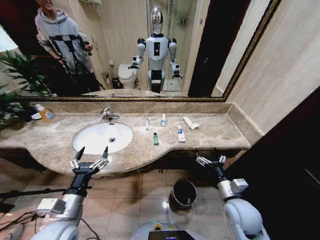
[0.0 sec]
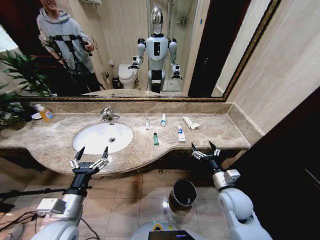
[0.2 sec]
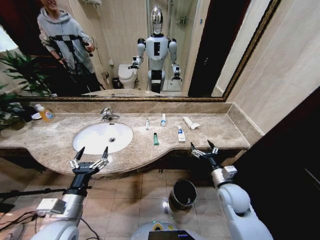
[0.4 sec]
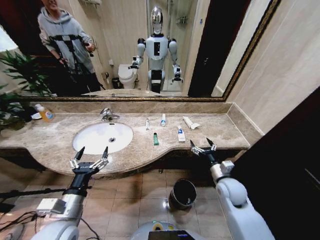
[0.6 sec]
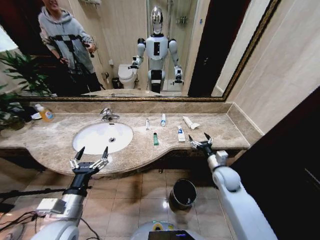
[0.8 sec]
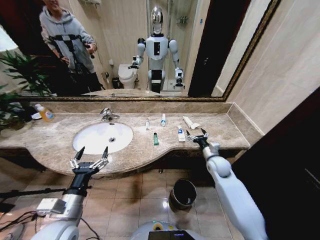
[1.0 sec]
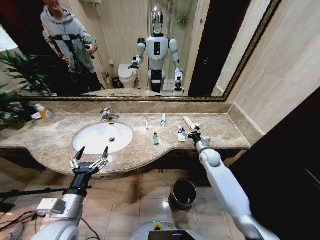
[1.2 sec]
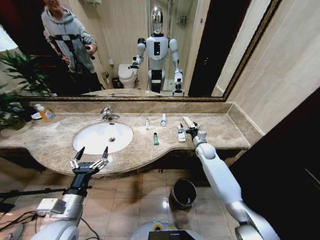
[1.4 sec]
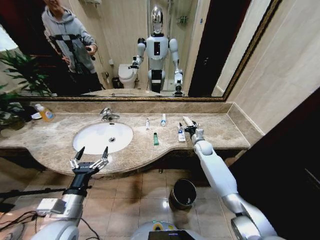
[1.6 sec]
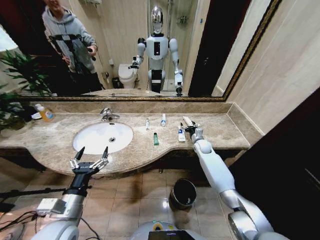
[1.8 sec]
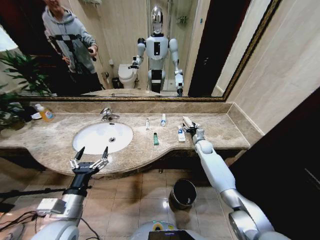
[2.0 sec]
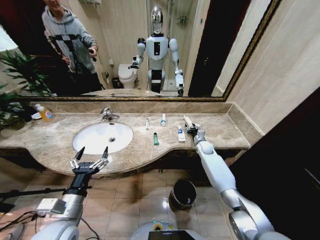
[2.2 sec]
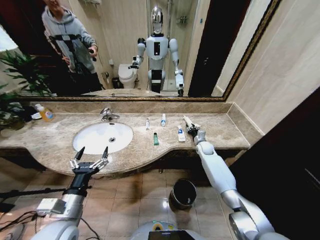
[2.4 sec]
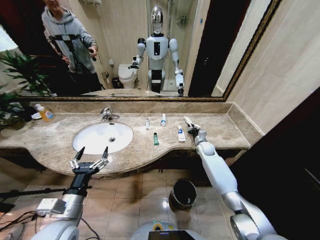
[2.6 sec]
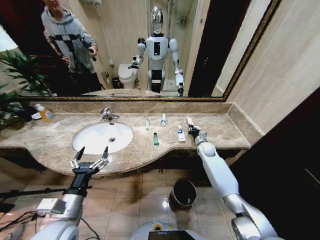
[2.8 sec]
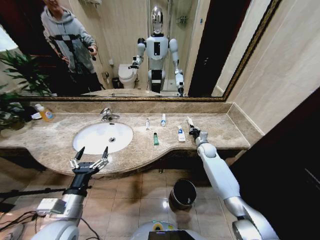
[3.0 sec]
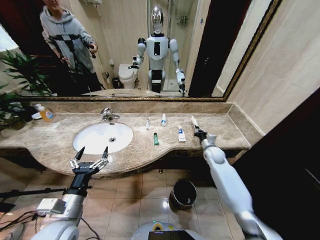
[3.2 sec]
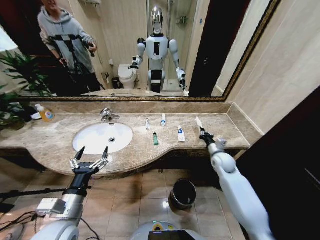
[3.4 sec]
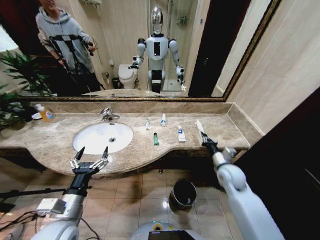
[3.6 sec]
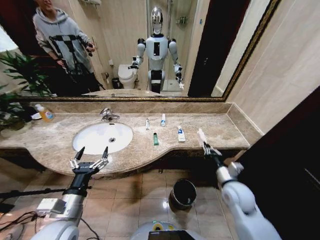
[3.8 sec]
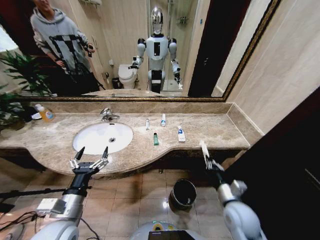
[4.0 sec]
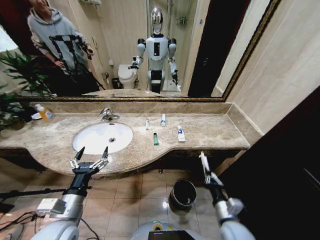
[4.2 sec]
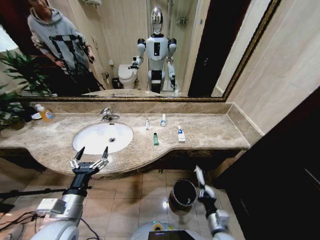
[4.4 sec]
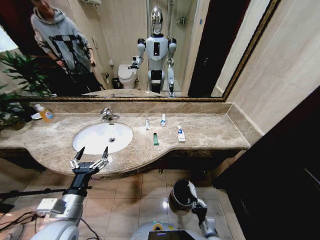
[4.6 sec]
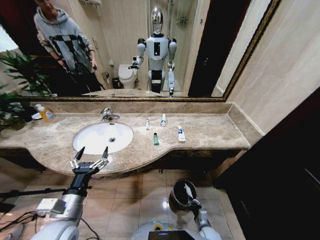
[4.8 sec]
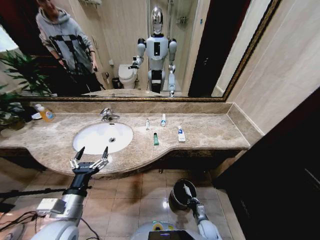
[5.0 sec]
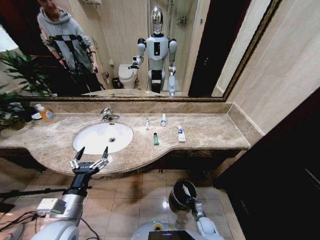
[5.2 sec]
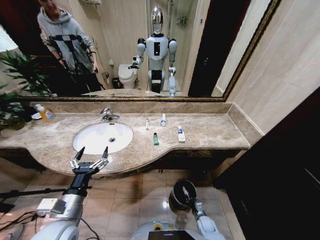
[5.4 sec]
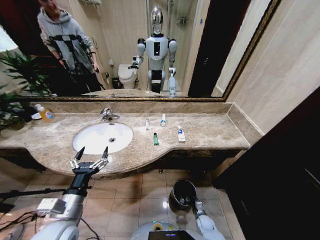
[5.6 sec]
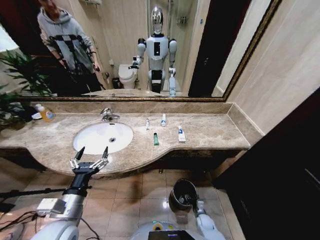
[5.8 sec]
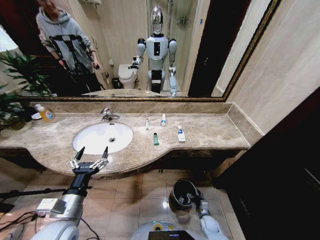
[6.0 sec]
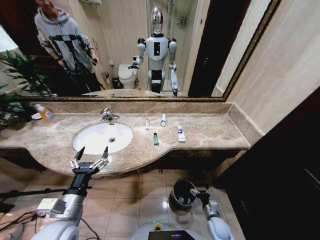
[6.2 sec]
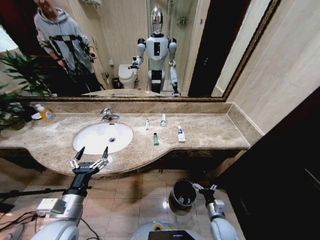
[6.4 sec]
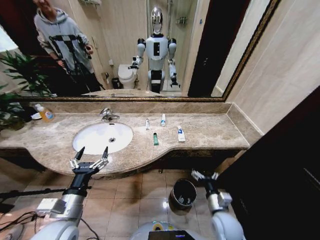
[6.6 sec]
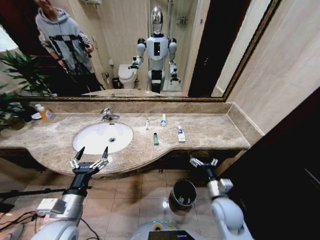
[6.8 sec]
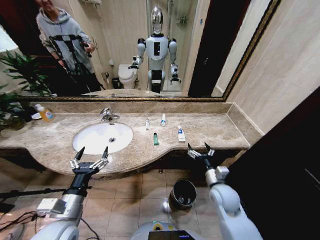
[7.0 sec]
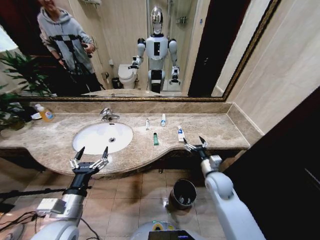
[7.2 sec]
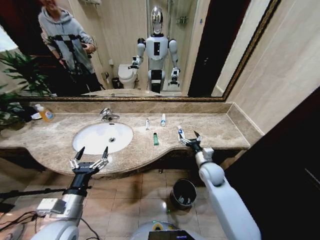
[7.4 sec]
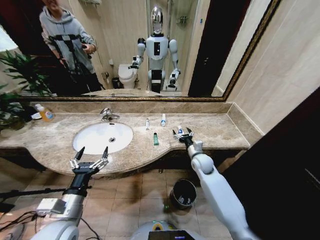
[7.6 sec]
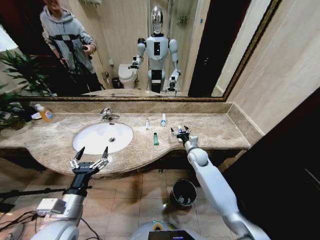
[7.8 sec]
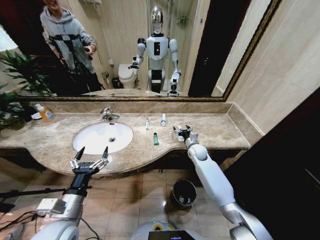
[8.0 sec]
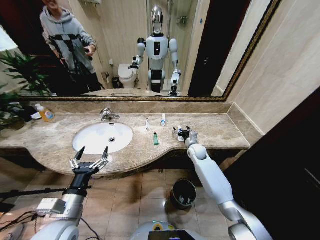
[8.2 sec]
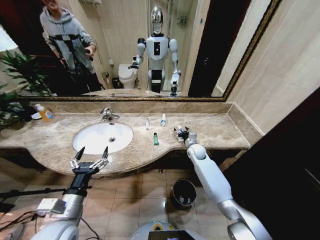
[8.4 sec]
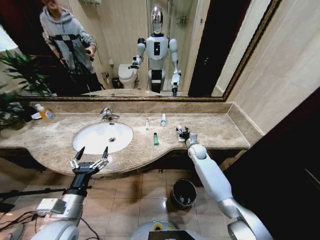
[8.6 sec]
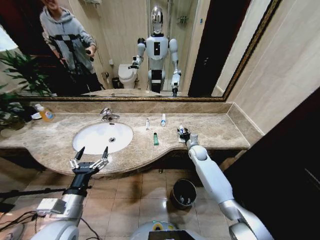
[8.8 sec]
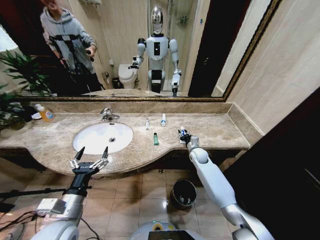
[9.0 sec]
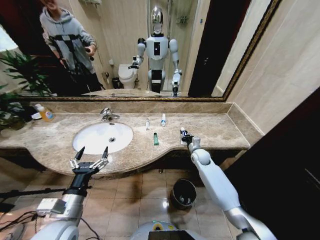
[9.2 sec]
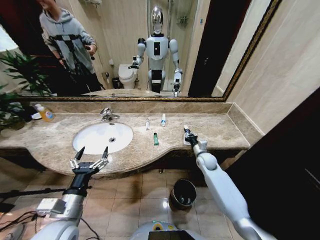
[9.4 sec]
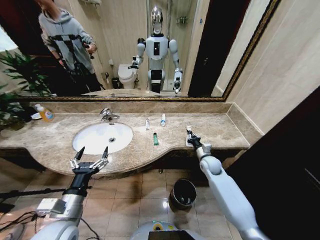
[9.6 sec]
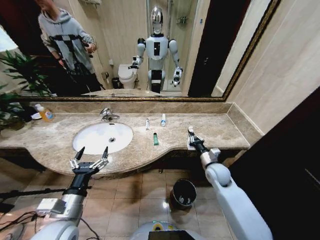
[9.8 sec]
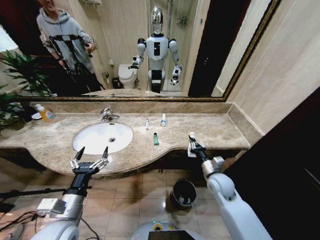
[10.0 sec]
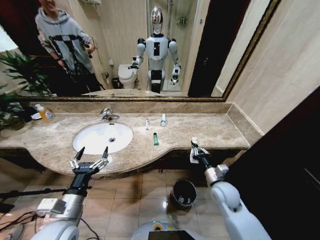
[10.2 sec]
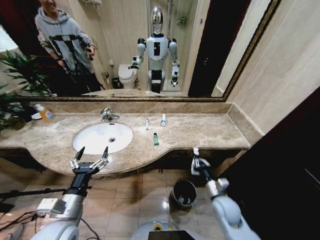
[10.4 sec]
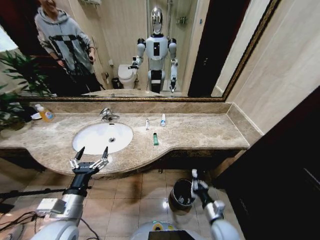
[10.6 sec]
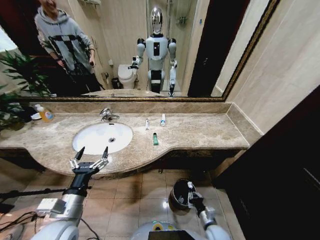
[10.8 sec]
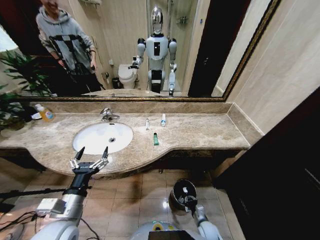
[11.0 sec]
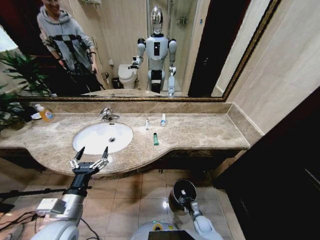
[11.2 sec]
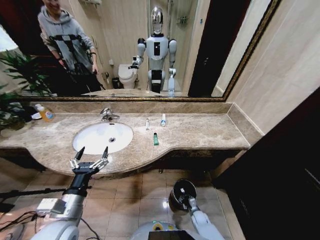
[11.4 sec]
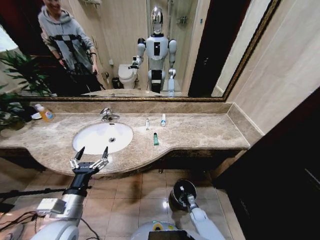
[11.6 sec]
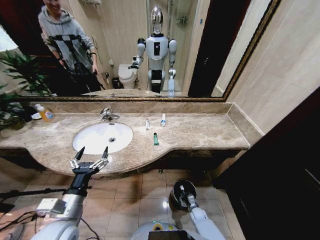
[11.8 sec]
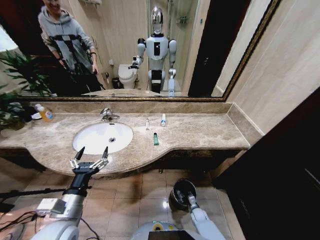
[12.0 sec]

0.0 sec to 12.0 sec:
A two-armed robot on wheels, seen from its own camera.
Task of the whole recording: Pick up the trash from the sink and place it in the trash bin.
1.6 sec to 3.0 sec: The right gripper closes.
3.0 sec to 4.4 sec: The right gripper moves backward, about 40 cm.
4.4 sec to 6.0 sec: The right gripper moves downward and forward, approximately 20 cm, and opens.
6.0 sec to 7.6 sec: The right gripper heads upward and forward, covering about 35 cm.
7.6 sec to 9.0 sec: The right gripper moves forward, about 5 cm, and closes.
9.0 sec to 10.4 sec: The right gripper goes approximately 25 cm backward, and closes up.
10.4 sec to 12.0 sec: The right gripper shifts about 30 cm downward, and opens.

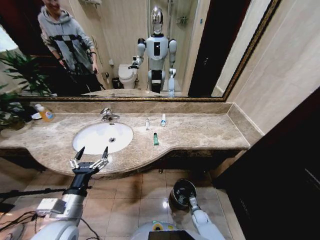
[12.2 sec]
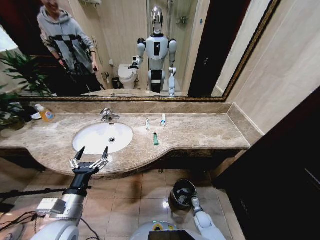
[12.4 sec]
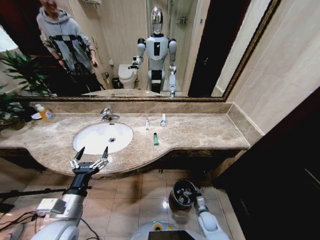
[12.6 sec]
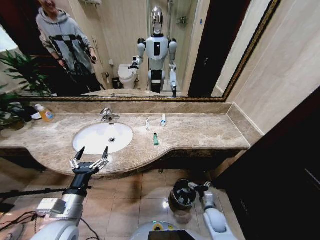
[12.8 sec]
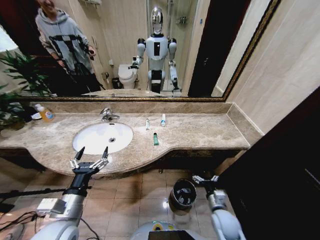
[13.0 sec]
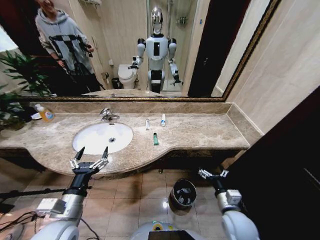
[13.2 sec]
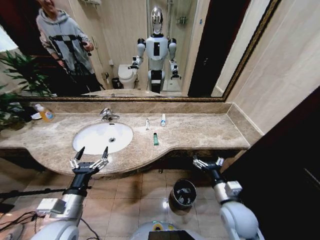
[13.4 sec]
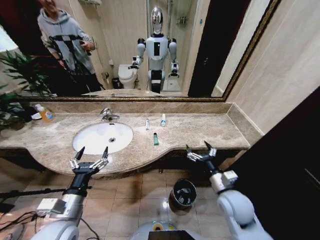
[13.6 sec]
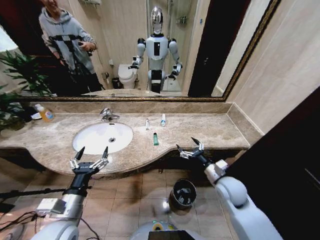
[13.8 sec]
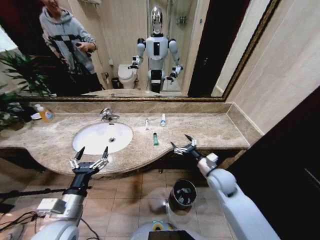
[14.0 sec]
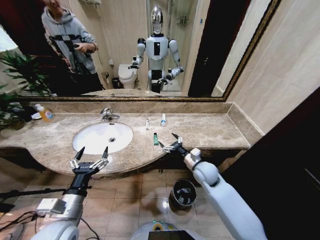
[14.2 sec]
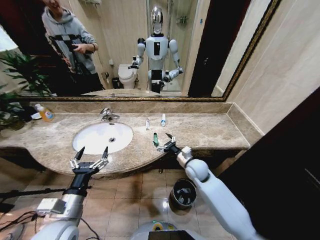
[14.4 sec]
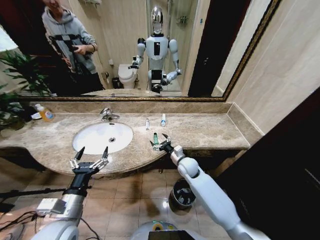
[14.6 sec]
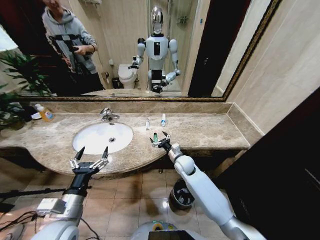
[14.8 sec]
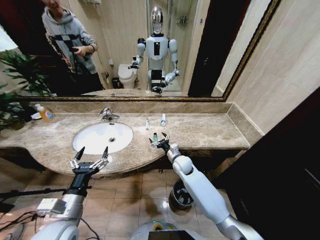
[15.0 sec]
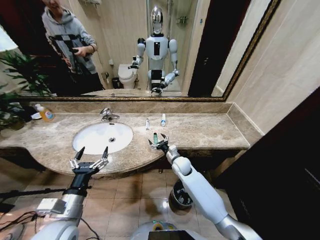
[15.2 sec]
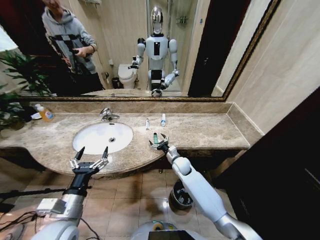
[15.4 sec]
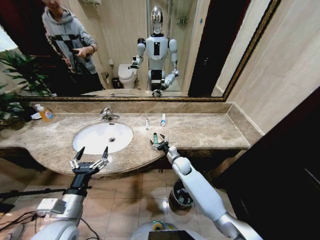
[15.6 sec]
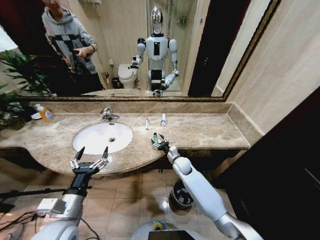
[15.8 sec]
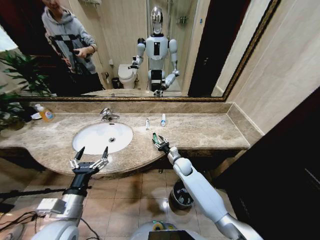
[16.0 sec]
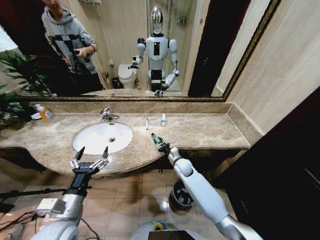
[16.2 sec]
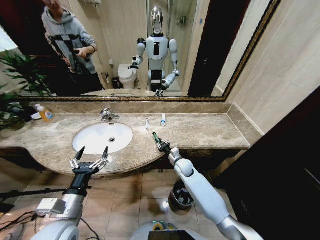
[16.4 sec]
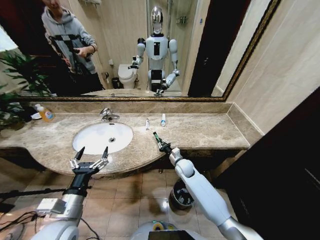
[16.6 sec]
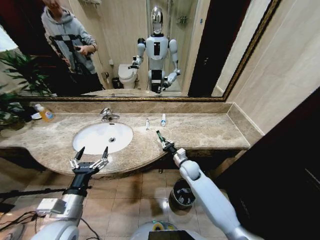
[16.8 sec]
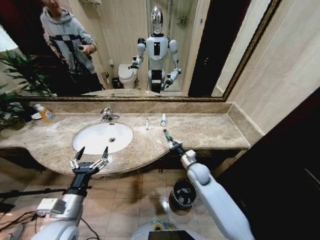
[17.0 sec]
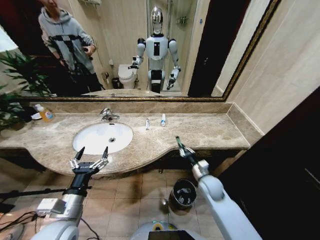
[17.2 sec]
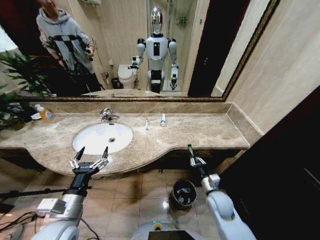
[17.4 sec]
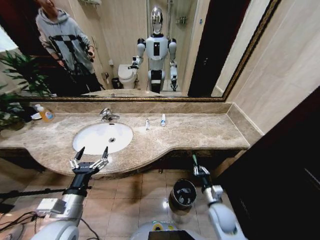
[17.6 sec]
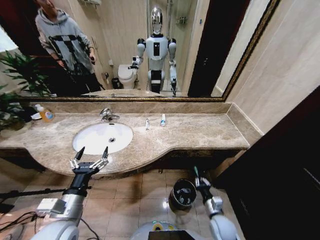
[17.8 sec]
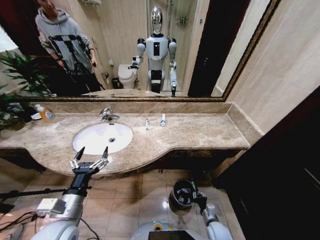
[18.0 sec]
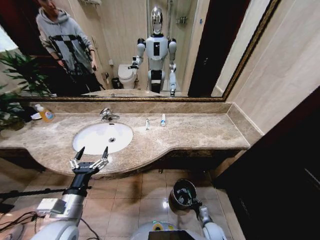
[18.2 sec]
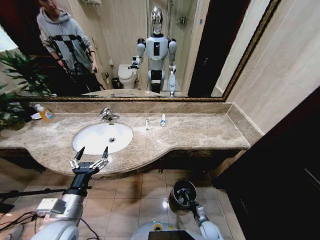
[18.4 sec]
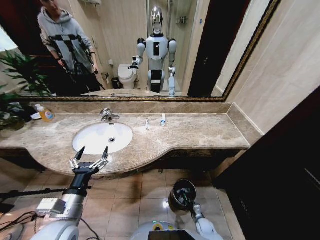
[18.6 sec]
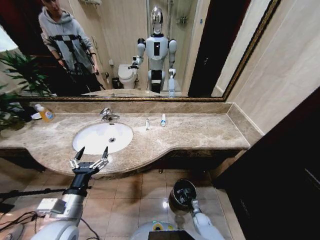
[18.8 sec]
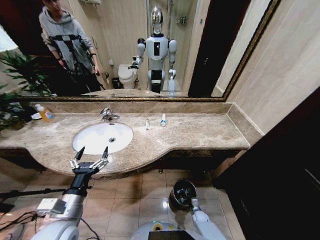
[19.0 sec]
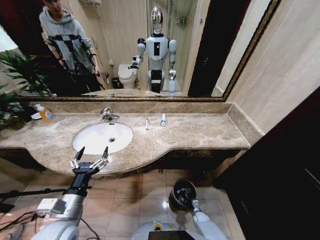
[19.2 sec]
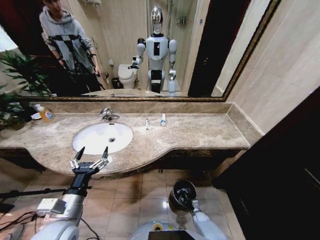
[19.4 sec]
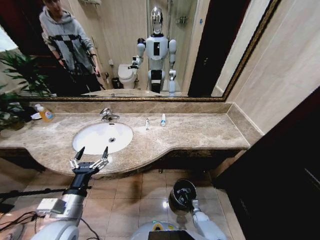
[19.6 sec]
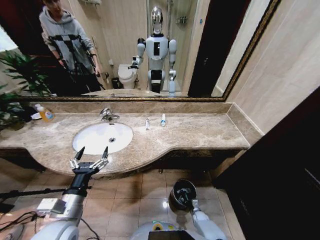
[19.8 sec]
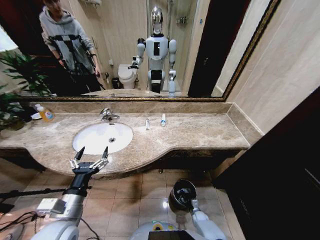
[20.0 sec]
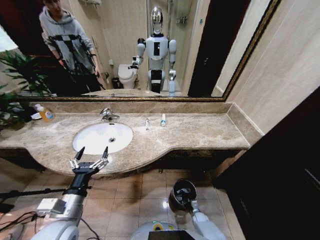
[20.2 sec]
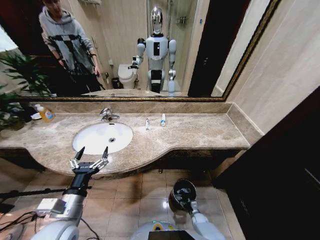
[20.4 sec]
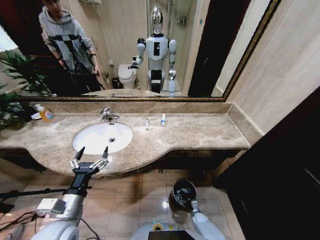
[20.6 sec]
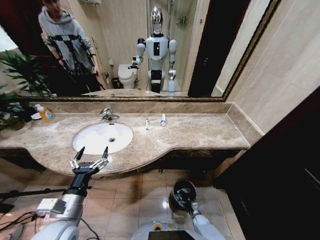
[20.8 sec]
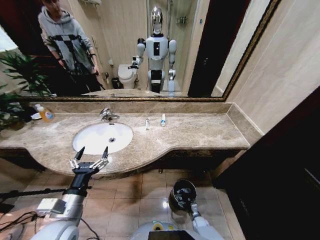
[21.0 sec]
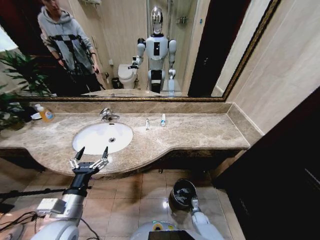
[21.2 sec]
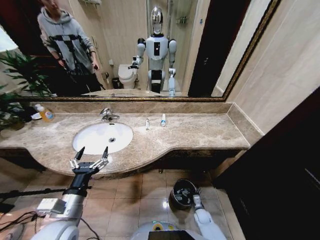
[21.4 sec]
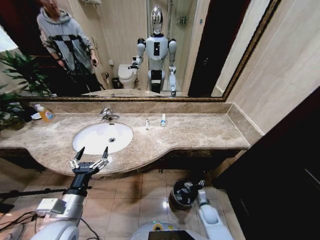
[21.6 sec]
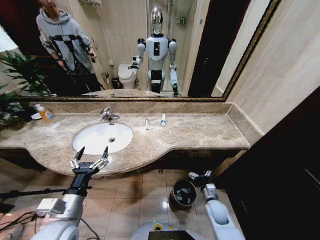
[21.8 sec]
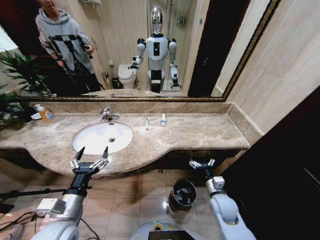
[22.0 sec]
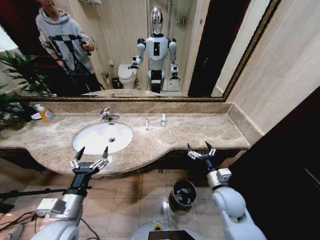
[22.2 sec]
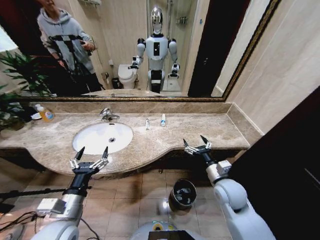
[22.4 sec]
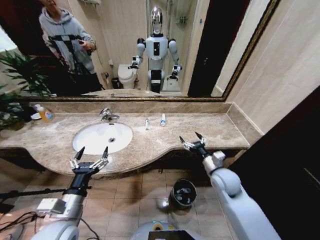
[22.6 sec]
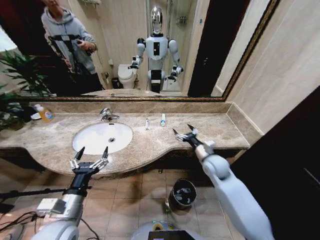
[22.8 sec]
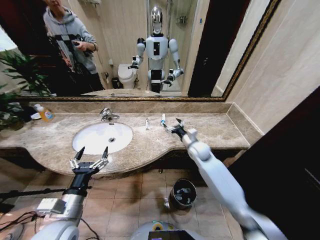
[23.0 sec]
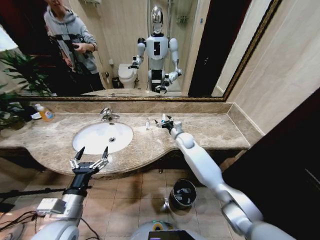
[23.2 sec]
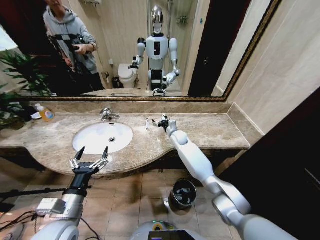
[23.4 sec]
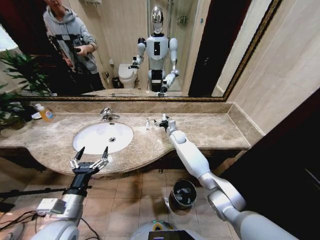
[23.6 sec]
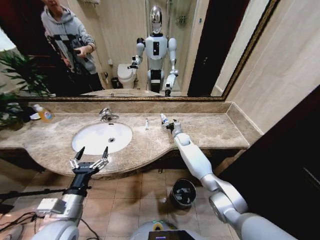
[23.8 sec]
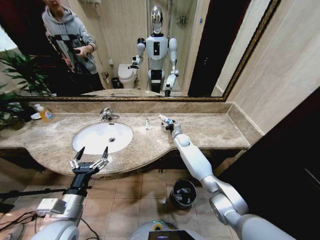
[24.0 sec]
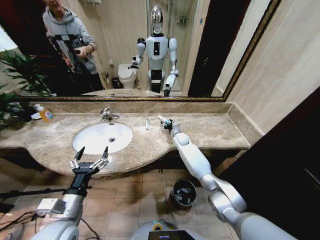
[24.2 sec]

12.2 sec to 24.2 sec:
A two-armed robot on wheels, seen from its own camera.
Task of the whole recording: Pick up the trash from the sink and place it in the trash bin.
12.2 sec to 13.8 sec: The right gripper shifts approximately 40 cm upward.
13.8 sec to 15.2 sec: The right gripper goes about 20 cm forward, to the left and downward.
15.2 sec to 16.6 sec: The right gripper closes its fingers.
16.6 sec to 18.2 sec: The right gripper is displaced backward, downward and to the right by some 35 cm.
18.2 sec to 19.8 sec: The right gripper heads downward and forward, covering about 15 cm.
21.2 sec to 22.6 sec: The right gripper travels upward by about 40 cm.
22.6 sec to 24.2 sec: The right gripper is displaced forward by about 30 cm.
